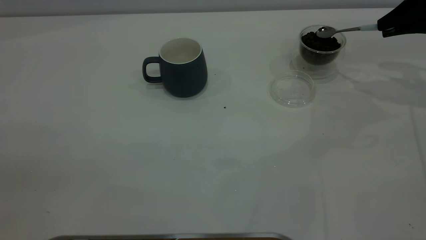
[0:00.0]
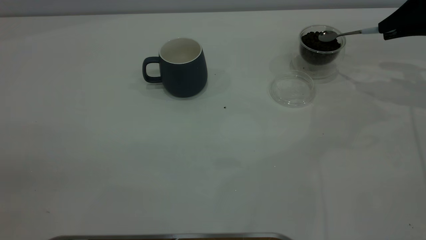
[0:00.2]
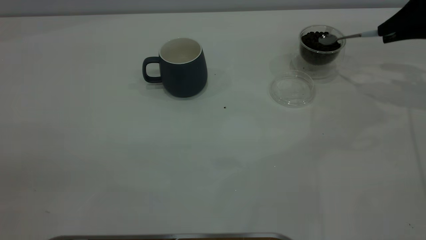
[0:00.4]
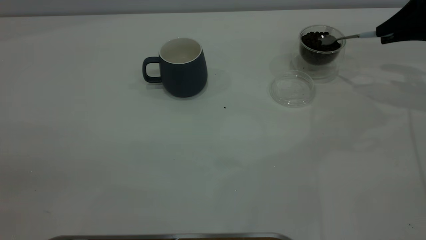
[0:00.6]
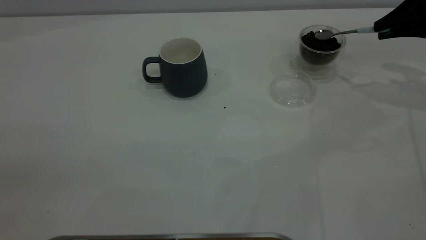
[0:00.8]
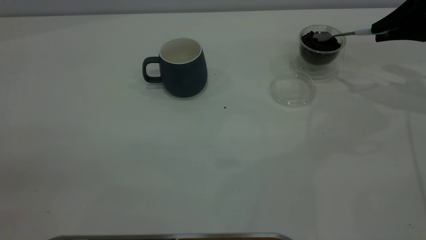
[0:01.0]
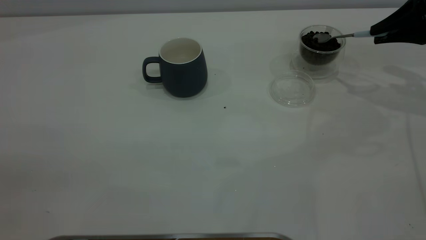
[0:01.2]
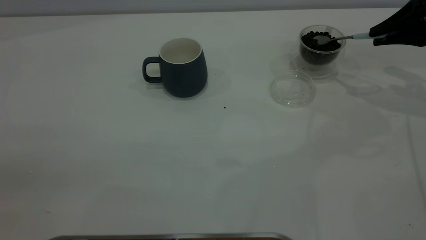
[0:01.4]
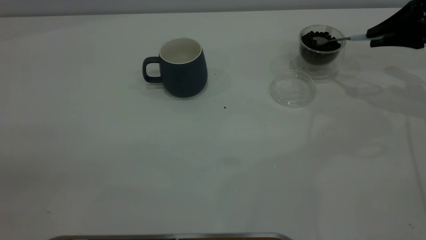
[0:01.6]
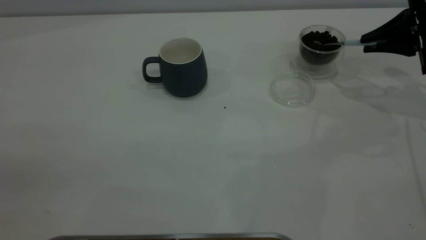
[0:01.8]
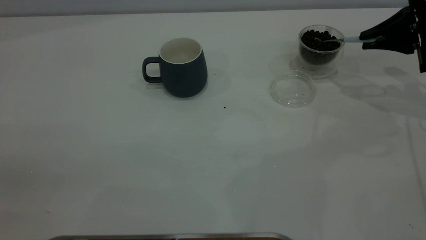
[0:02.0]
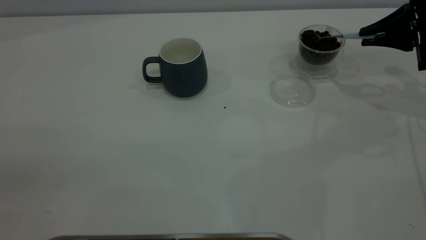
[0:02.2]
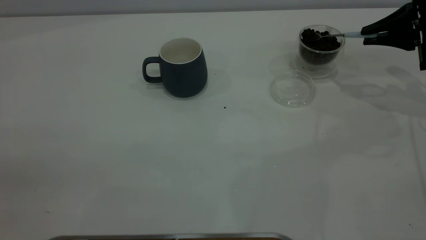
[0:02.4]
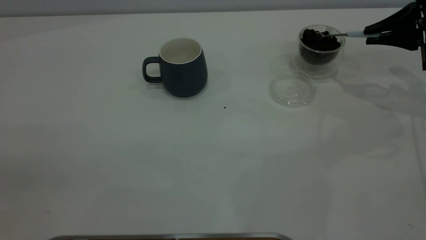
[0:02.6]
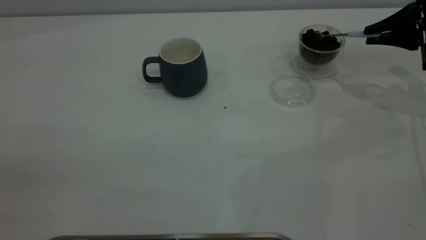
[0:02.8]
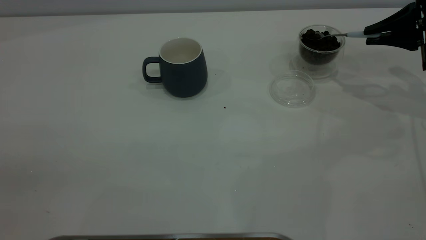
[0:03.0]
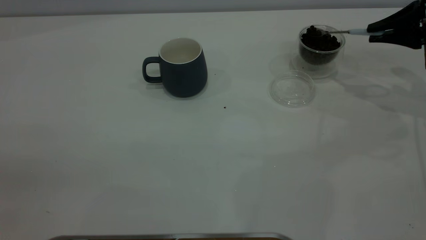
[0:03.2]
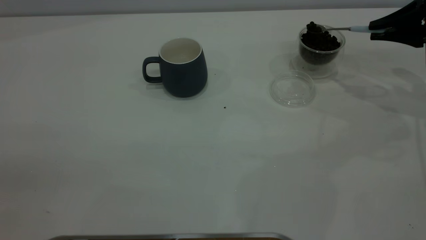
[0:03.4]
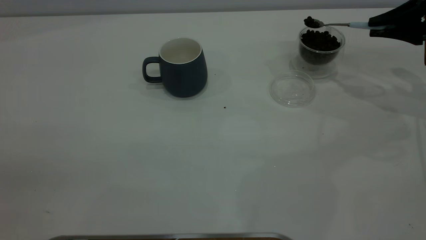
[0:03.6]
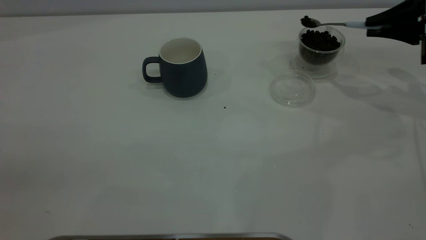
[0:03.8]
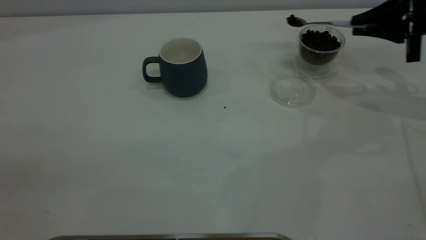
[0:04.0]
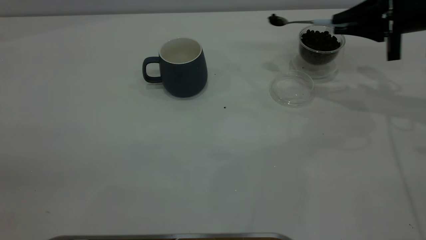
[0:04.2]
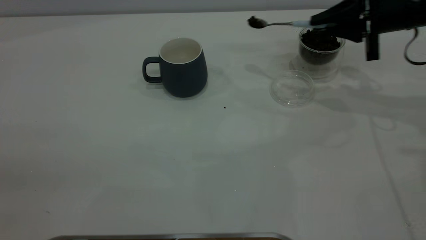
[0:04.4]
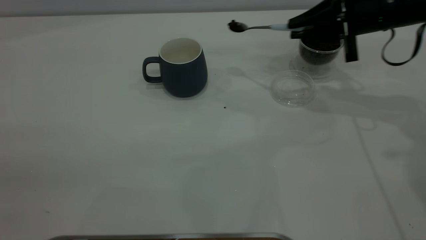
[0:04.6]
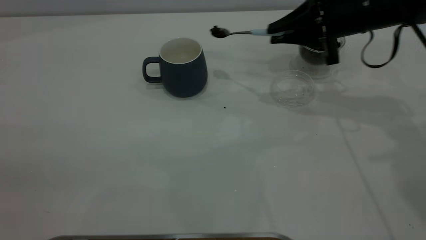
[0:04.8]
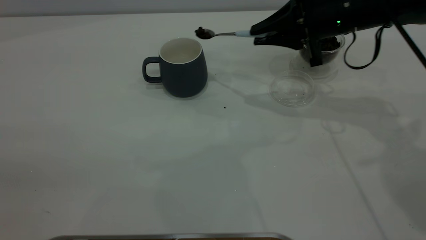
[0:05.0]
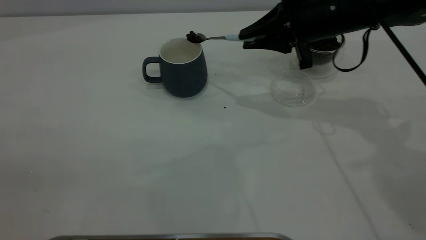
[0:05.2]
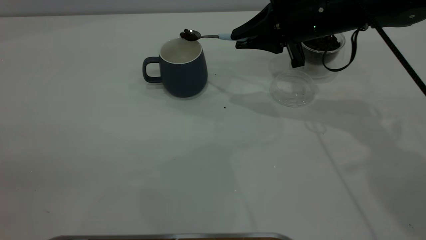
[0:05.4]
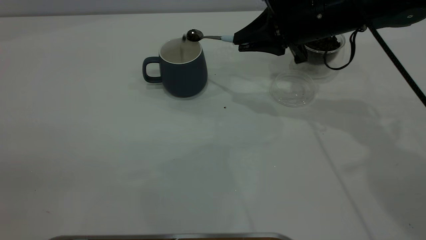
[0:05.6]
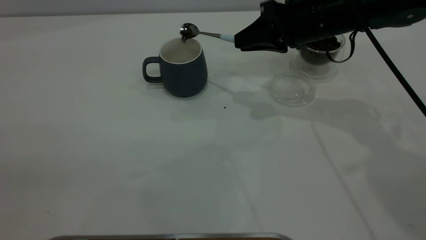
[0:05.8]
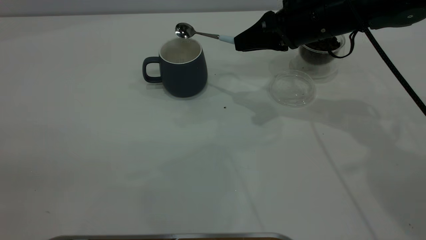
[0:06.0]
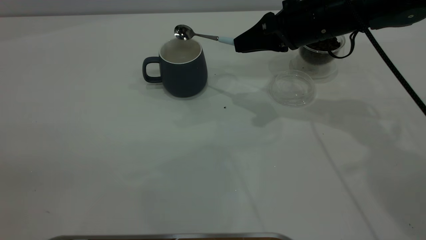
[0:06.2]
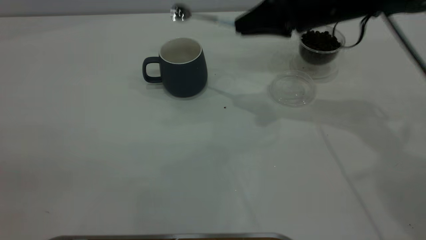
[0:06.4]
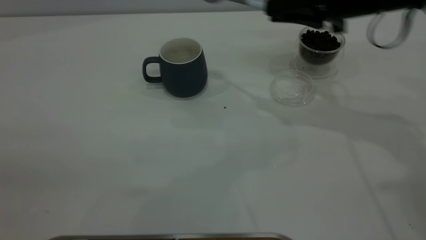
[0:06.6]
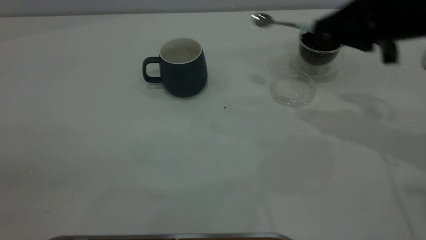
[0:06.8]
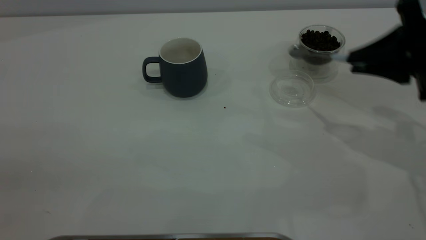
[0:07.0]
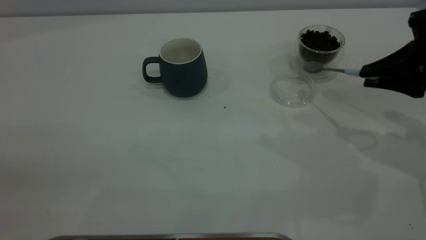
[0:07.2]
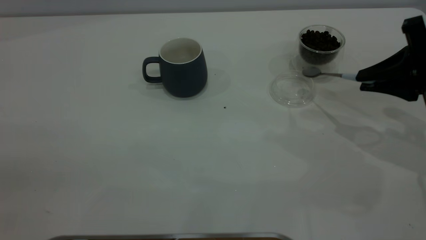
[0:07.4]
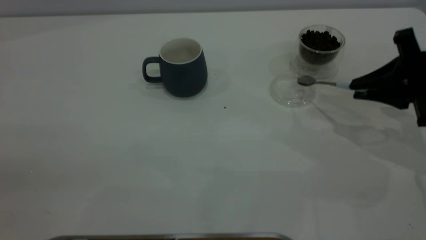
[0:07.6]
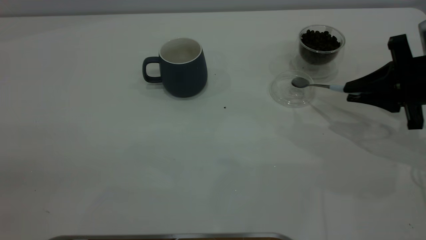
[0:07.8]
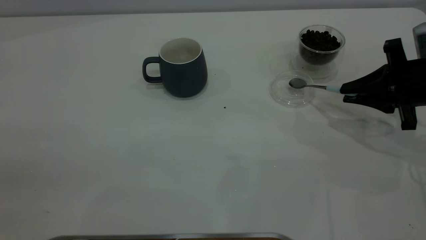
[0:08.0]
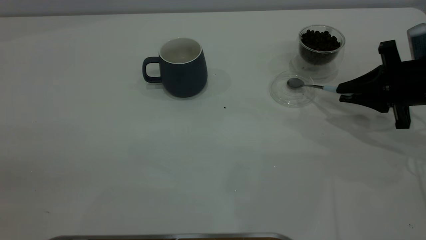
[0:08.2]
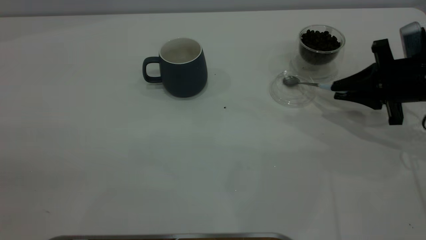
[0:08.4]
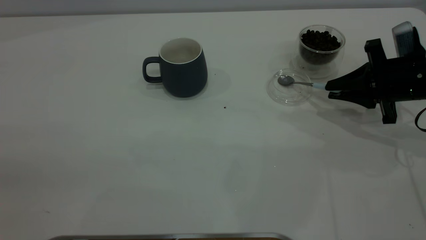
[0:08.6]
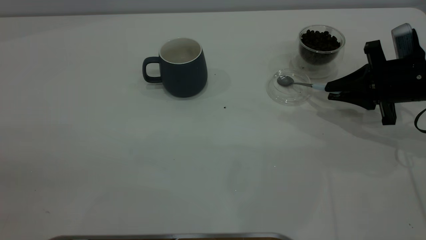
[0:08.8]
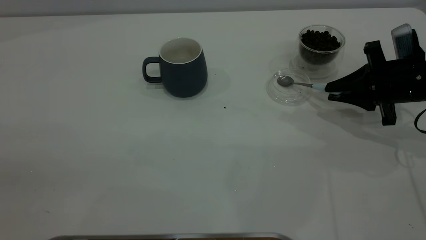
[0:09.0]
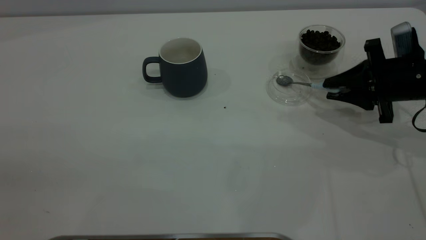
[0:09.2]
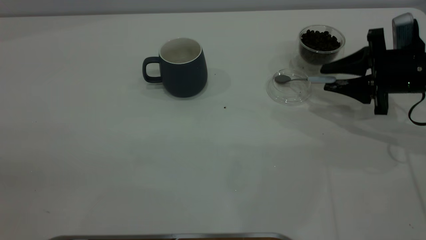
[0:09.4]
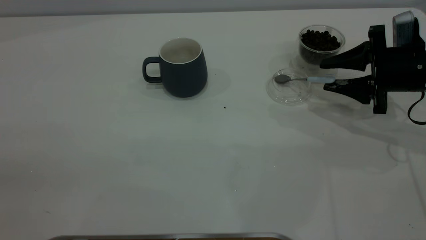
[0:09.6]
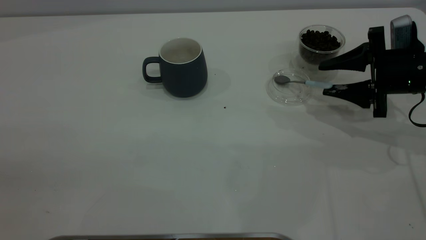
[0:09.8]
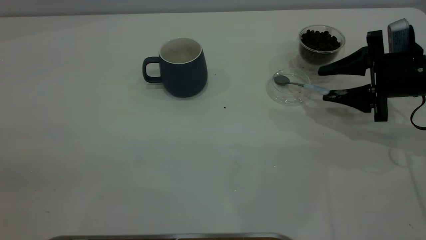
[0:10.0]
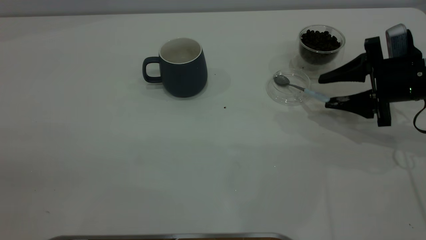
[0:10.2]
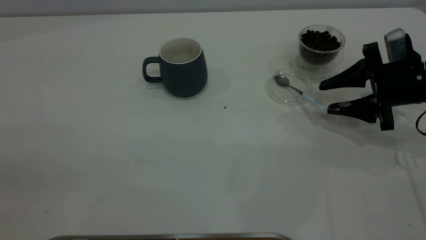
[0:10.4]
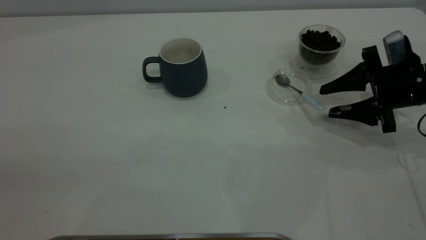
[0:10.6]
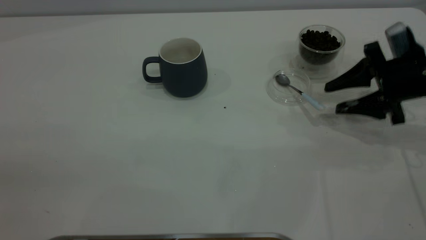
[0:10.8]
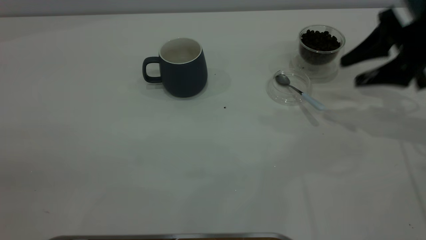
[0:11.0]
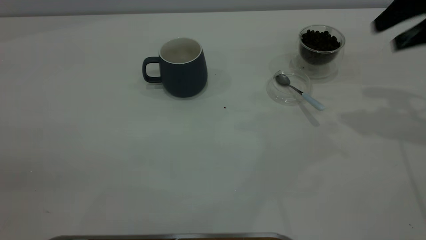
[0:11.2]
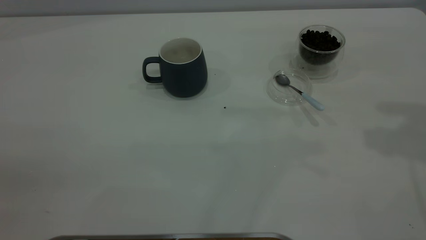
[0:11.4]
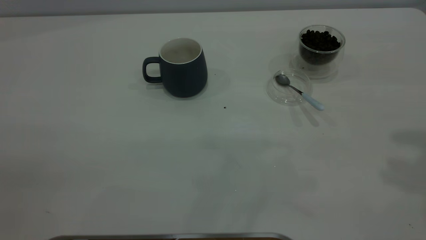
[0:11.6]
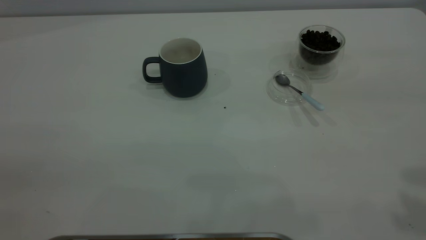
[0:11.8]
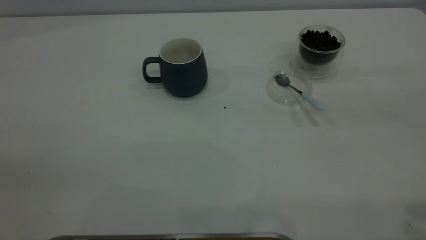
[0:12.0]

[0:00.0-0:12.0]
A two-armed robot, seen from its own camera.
Task of the whole recording: the left gripper place the grey cup in the center of the table, the right gripper take the blue spoon from the cup lid and scoop out the coffee beans from the coffee cup and put them into the grey cup, the right gripper put the spoon back into the cup lid.
Step, 0:00.0 to 0:06.2: Scoop a spoonful of beans into the cup.
Step, 0:06.4 to 0:10.6: Place the spoon back in its original place.
0:03.0 to 0:04.4: The right gripper is displaced to the left by some 10 cm.
0:04.4 to 0:06.0: The right gripper is displaced to the left by some 10 cm.
0:06.0 to 0:07.6: The right gripper heads to the right and backward, covering some 20 cm.
0:07.6 to 0:09.0: The right gripper moves about 5 cm.
0:09.0 to 0:10.4: The right gripper opens up.
0:10.4 to 0:12.0: The right gripper travels upward and backward by some 35 cm.

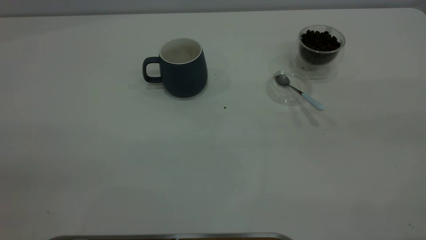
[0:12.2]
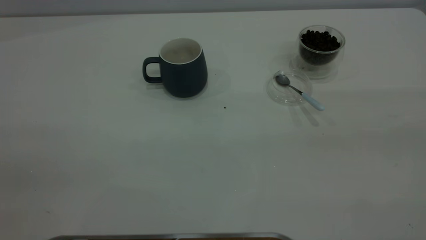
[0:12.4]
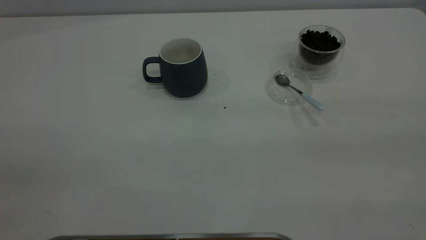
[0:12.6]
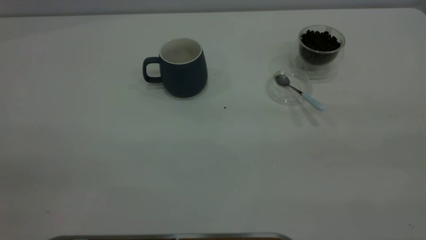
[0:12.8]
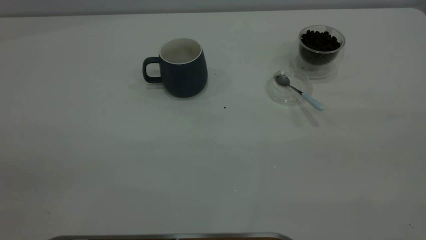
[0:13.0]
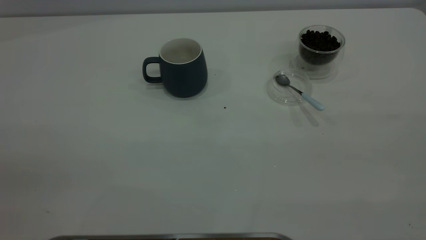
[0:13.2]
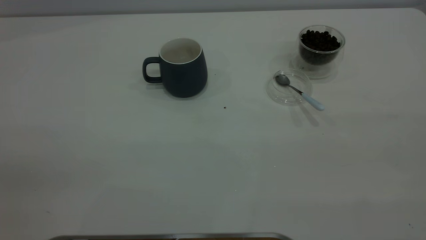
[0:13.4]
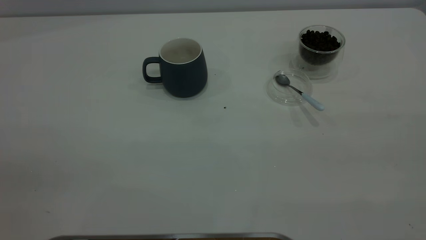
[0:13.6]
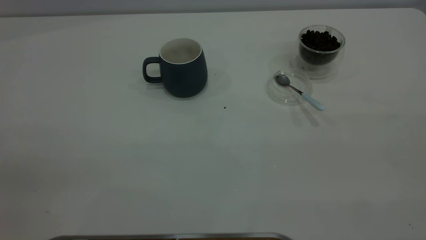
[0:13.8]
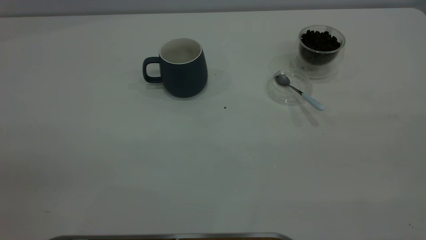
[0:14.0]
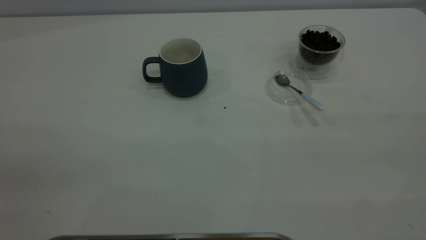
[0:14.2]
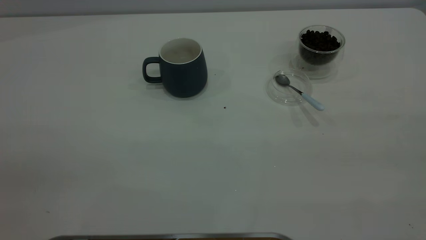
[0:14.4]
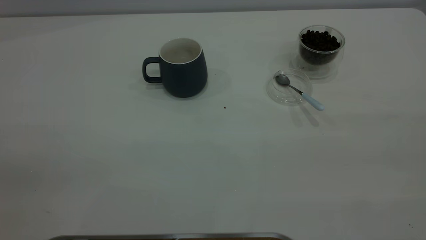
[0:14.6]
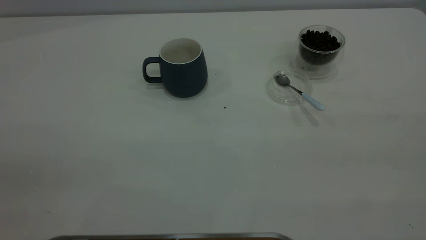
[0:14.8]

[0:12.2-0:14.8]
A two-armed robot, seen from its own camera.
Task of the whole recording: the left gripper place the grey cup in the center of the table, the right gripper take the blue spoon from the cup lid and scoop out the coffee beans from the coffee cup and put them into the grey cup, the right gripper put the spoon back into the cup lid.
0:13.4 to 0:14.8: The two grippers keep their place.
